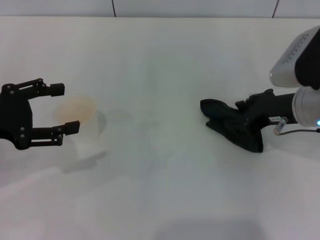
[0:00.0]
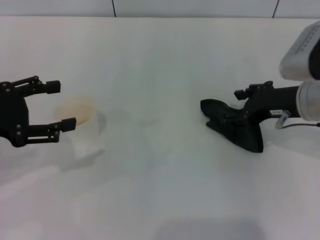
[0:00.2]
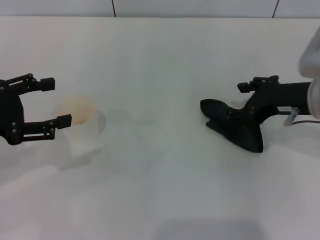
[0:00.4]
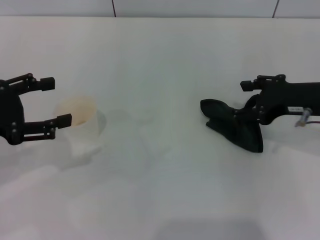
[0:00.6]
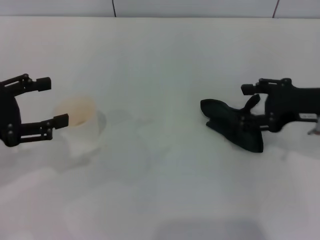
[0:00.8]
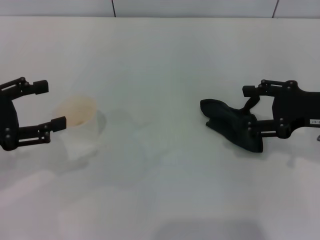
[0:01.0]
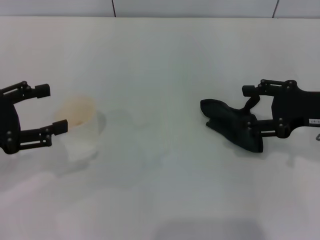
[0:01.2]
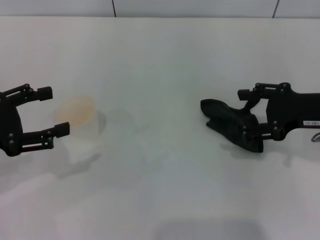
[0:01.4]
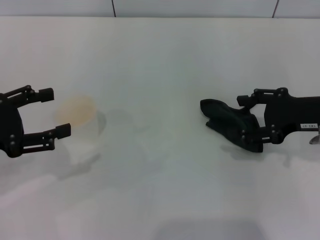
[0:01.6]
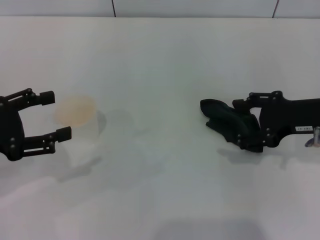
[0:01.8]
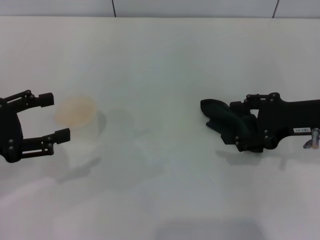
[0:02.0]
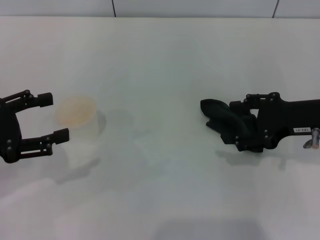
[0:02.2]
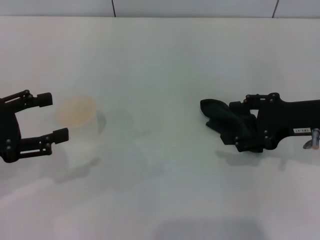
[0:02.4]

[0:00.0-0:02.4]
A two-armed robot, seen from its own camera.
0:00.0 to 0:01.2: The right gripper travels to the right by roughly 5 cm, and opens up.
0:01.2 to 0:02.4: The grippers move only a little.
